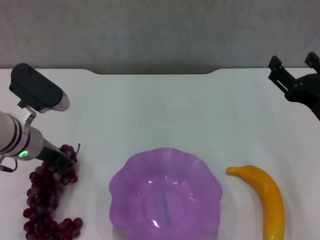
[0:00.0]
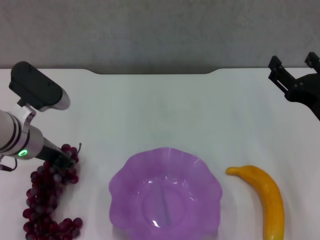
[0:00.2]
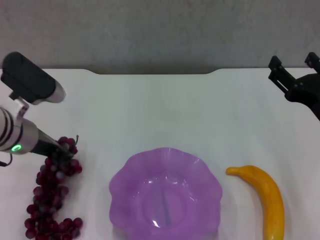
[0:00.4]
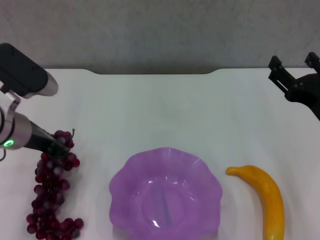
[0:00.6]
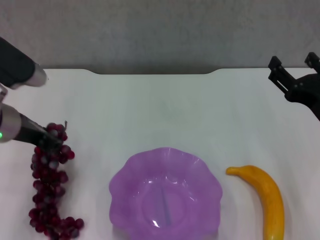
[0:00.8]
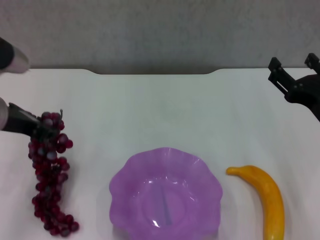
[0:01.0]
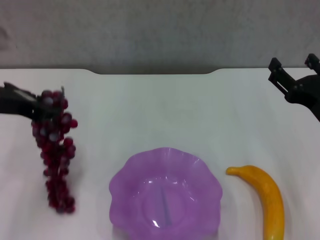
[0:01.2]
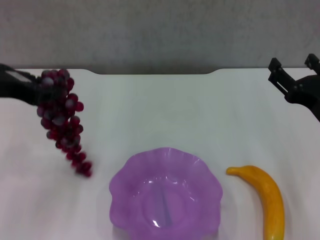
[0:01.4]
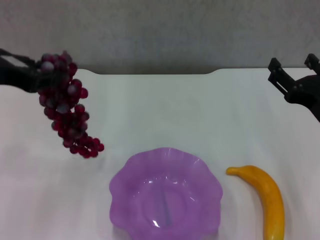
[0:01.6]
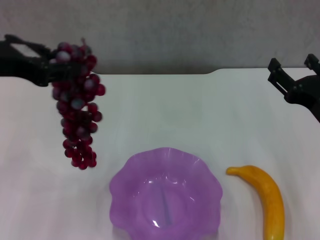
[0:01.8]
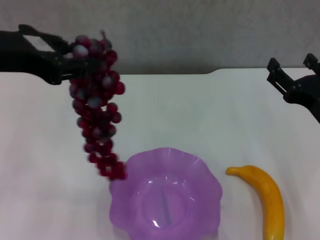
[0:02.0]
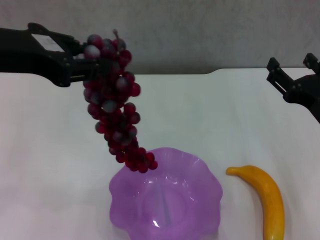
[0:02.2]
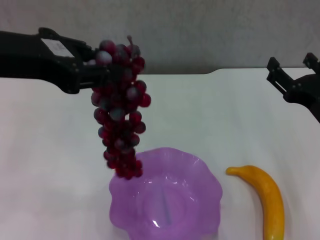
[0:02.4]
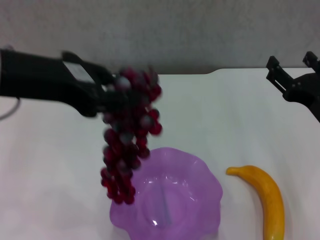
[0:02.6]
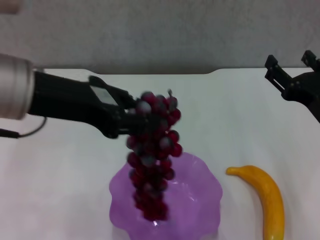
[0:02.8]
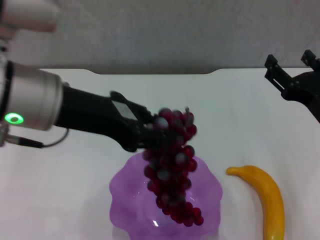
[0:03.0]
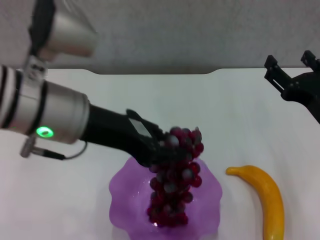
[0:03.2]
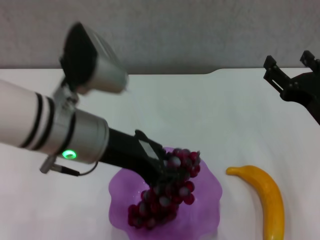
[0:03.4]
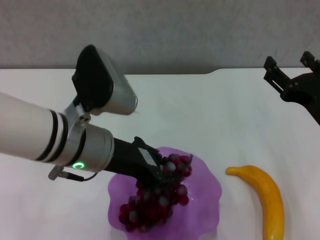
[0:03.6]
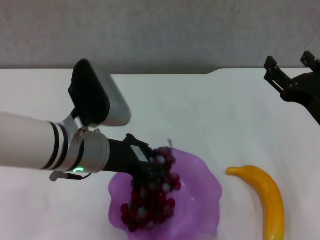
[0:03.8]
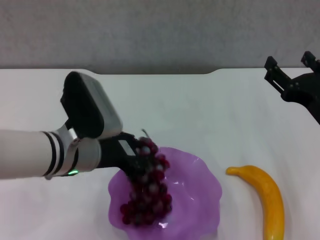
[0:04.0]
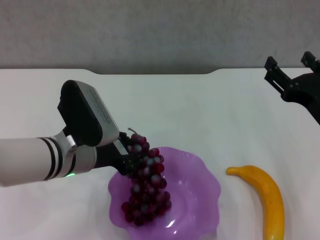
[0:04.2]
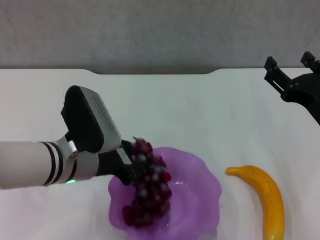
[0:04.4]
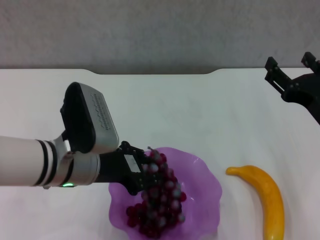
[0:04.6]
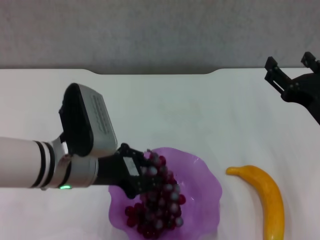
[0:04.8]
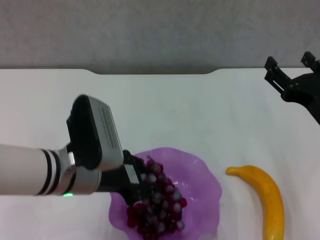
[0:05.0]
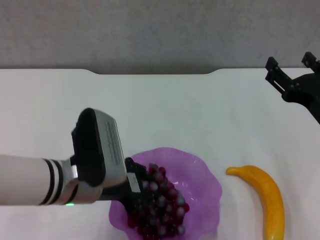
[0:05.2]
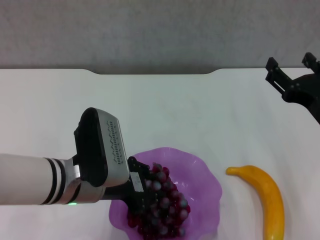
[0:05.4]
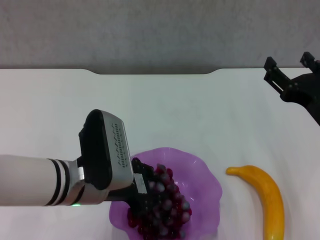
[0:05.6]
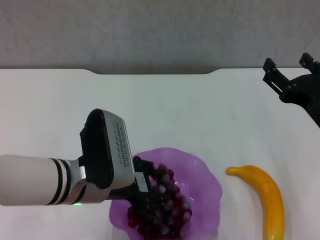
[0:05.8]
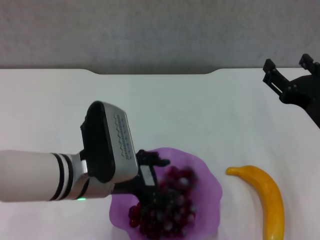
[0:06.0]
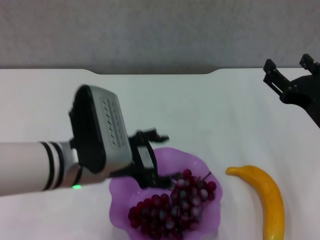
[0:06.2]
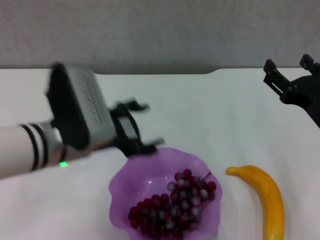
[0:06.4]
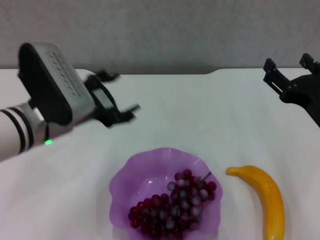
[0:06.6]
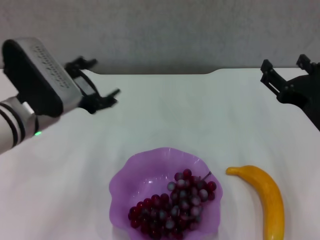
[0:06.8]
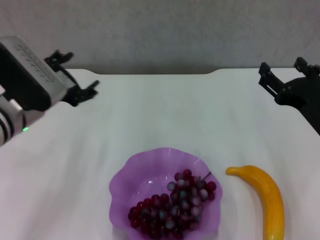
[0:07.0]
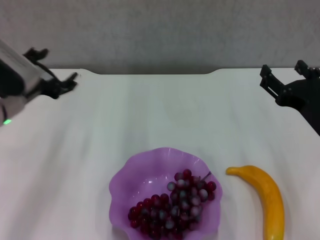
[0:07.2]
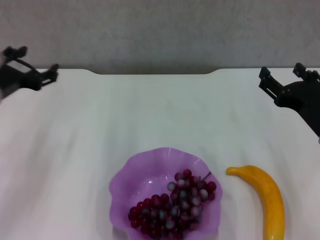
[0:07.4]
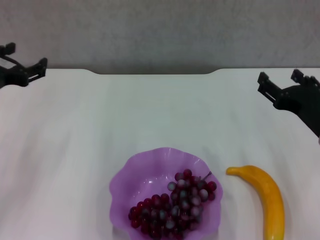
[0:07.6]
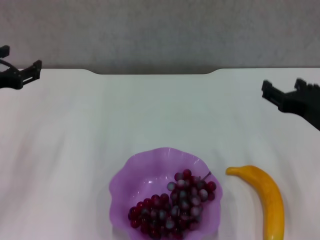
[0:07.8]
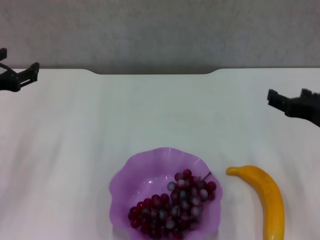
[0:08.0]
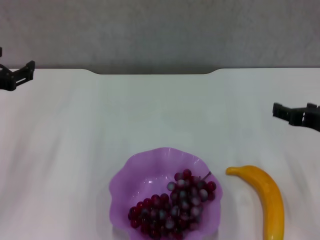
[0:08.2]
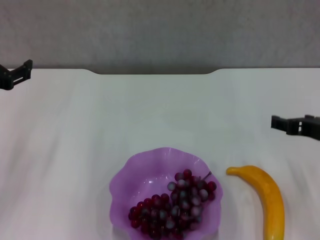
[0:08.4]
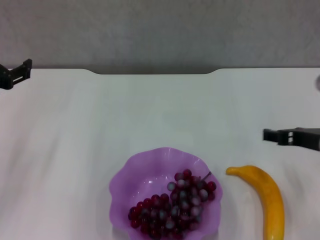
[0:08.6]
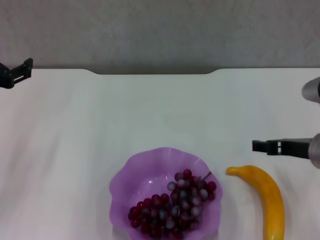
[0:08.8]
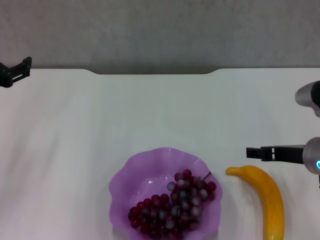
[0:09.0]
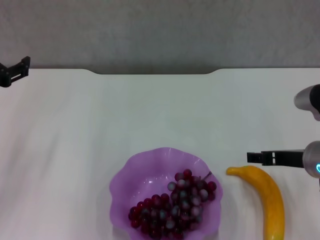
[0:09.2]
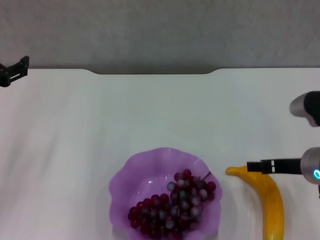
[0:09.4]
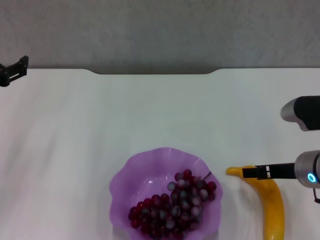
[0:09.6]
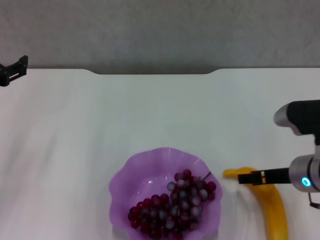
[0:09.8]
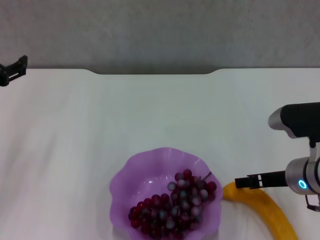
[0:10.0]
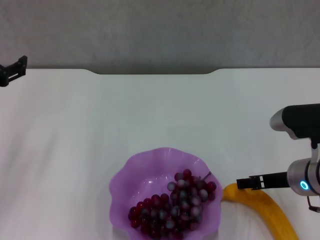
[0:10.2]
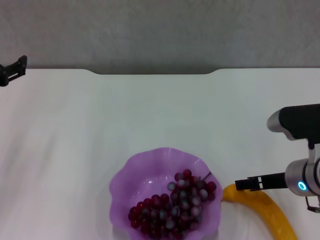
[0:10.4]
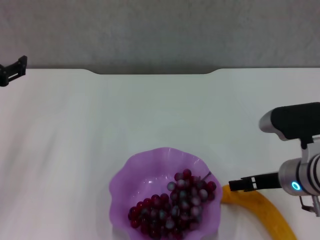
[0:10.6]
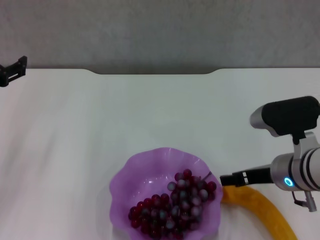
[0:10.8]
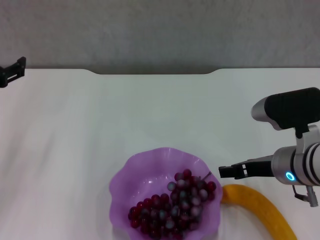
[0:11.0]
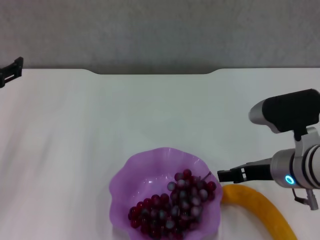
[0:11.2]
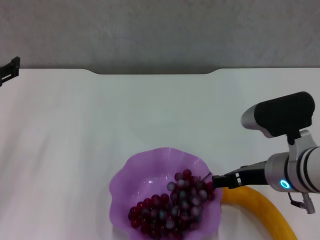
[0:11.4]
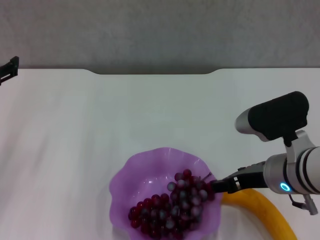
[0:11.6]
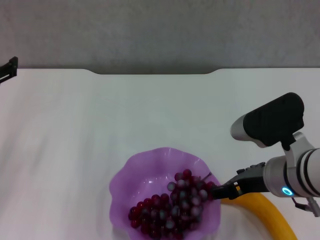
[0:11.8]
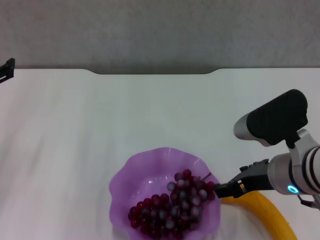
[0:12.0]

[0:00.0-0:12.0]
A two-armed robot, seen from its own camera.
Step, 0:00.0 to 0:06.2: Place the grape in the purple plate with left gripper.
0:00.0 to 0:01.6: The left gripper goes about 15 cm upward.
0:01.6 to 0:03.0: The left gripper goes about 10 cm to the right.
0:03.0 to 0:04.4: The left gripper shifts approximately 15 cm downward.
0:04.4 to 0:06.0: The grippers stay close to where they were, moving slightly.
0:06.0 to 0:07.6: The left gripper is displaced to the left by some 15 cm, and opens its fingers.
0:09.0 to 0:10.4: There are only small adjustments of the grippers.
0:10.4 to 0:12.0: The right gripper ends up approximately 5 cm from where it was.

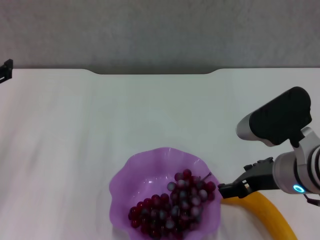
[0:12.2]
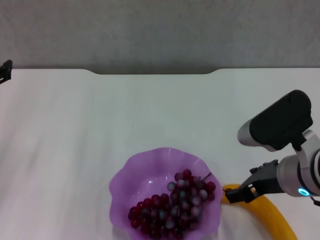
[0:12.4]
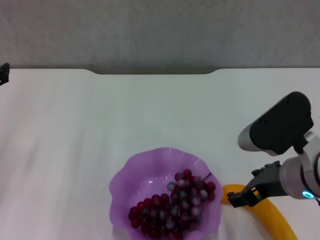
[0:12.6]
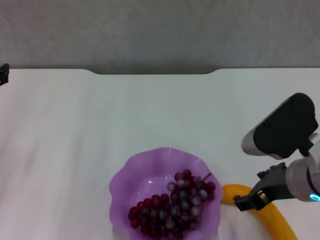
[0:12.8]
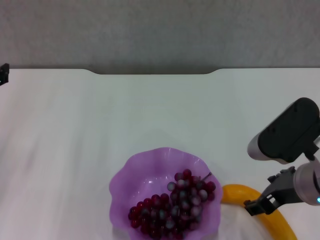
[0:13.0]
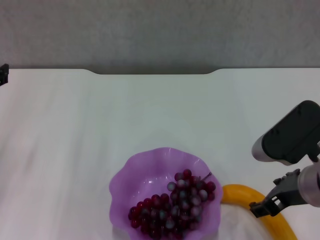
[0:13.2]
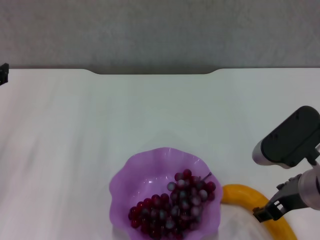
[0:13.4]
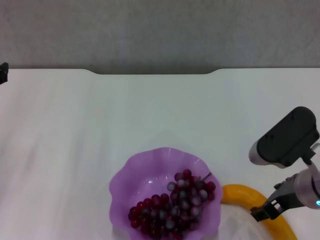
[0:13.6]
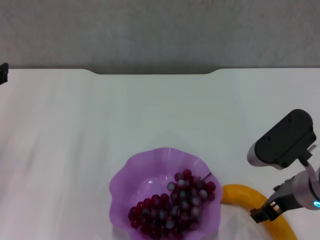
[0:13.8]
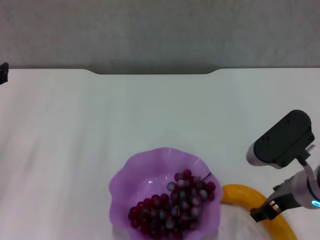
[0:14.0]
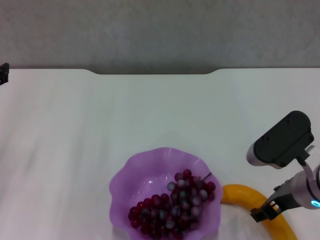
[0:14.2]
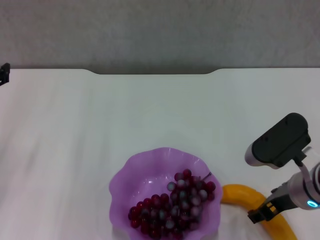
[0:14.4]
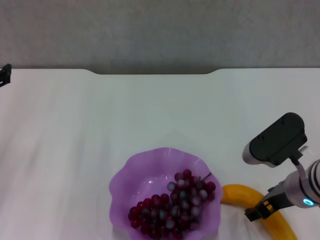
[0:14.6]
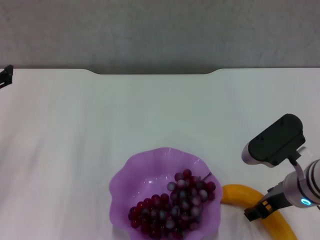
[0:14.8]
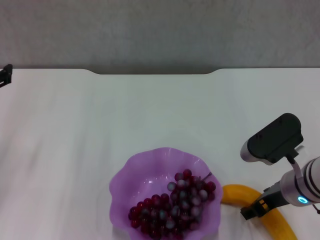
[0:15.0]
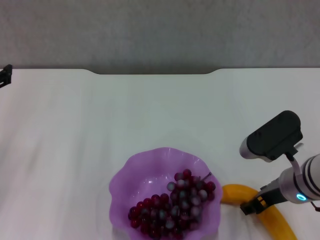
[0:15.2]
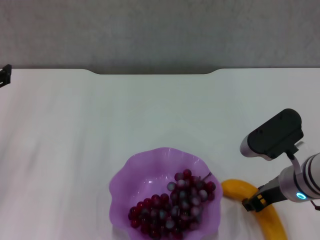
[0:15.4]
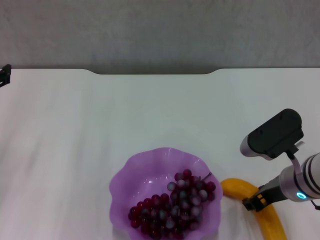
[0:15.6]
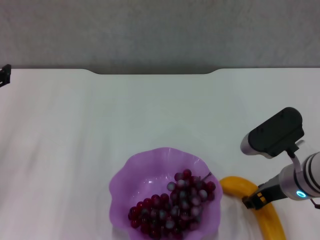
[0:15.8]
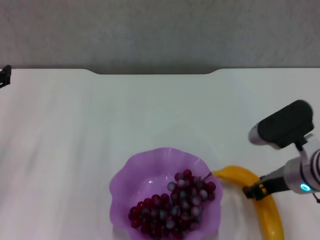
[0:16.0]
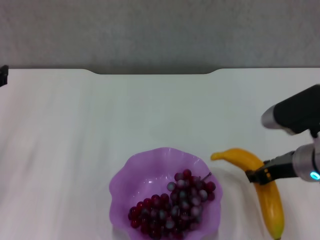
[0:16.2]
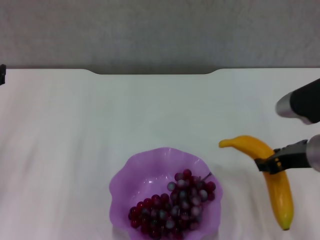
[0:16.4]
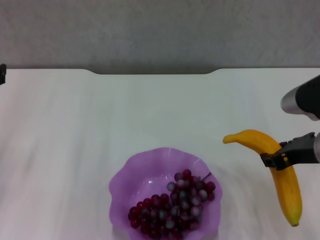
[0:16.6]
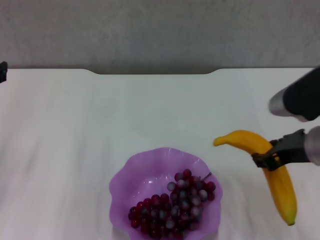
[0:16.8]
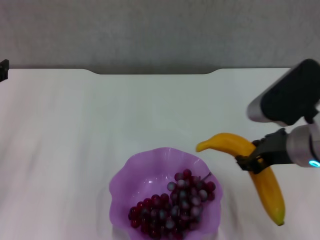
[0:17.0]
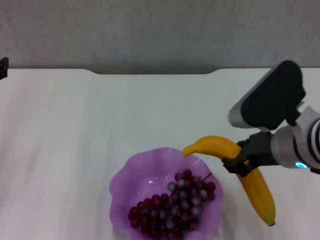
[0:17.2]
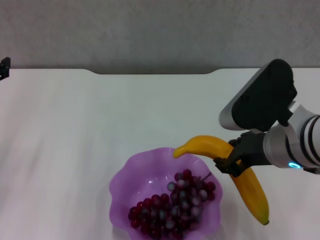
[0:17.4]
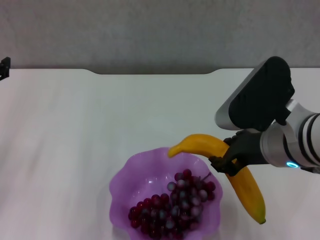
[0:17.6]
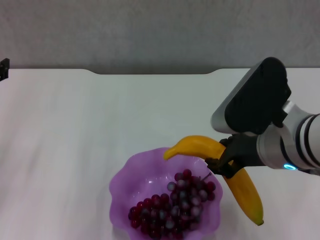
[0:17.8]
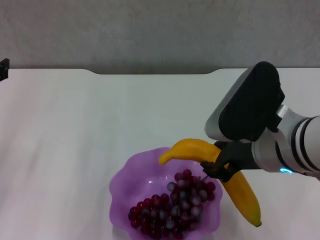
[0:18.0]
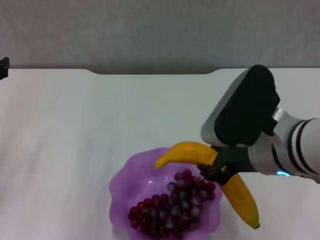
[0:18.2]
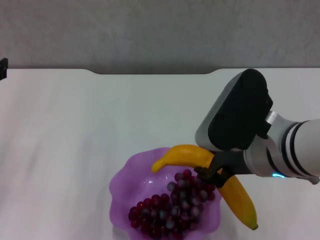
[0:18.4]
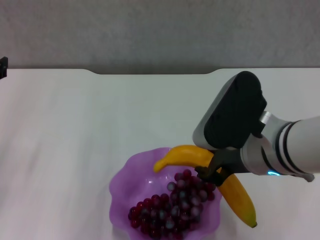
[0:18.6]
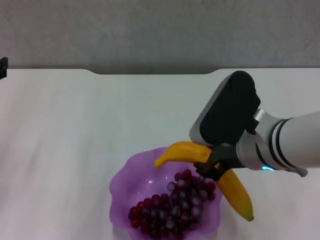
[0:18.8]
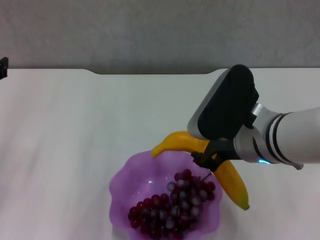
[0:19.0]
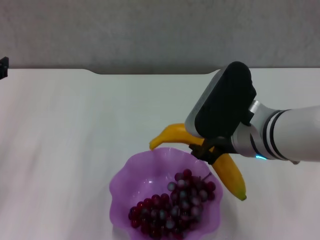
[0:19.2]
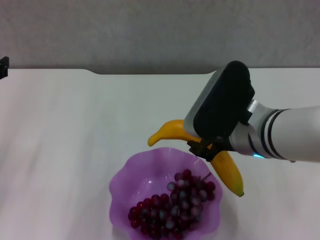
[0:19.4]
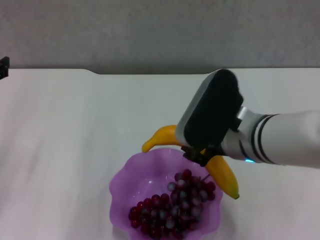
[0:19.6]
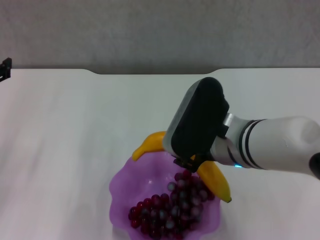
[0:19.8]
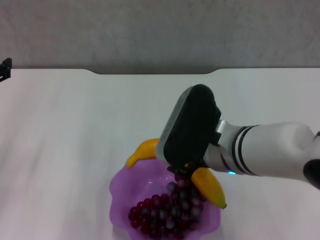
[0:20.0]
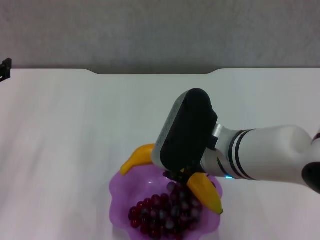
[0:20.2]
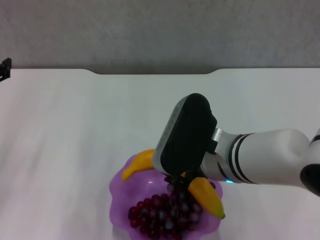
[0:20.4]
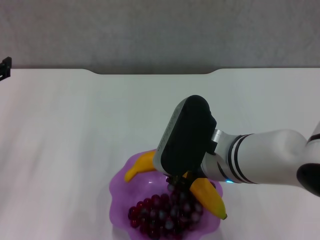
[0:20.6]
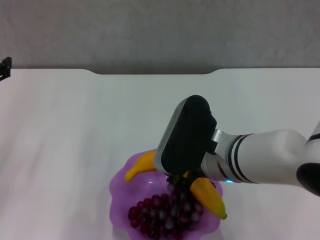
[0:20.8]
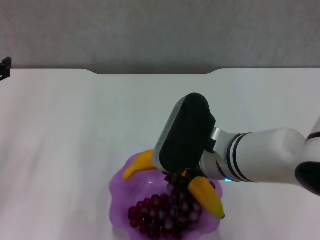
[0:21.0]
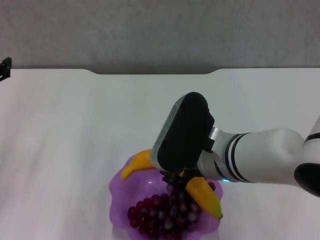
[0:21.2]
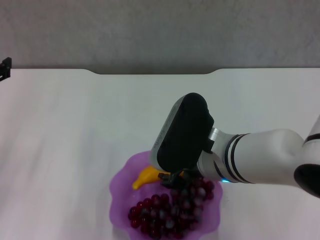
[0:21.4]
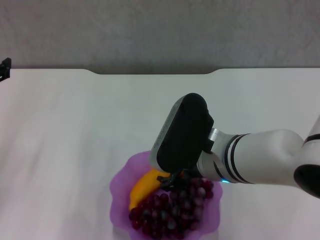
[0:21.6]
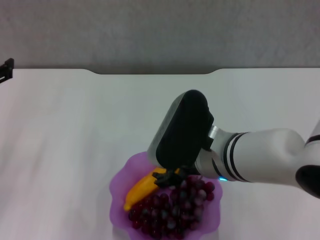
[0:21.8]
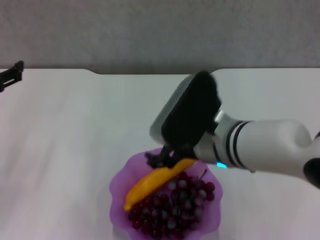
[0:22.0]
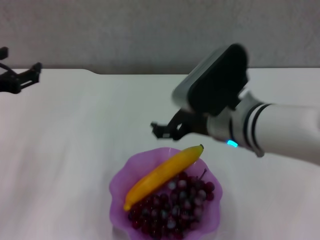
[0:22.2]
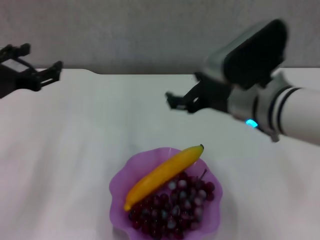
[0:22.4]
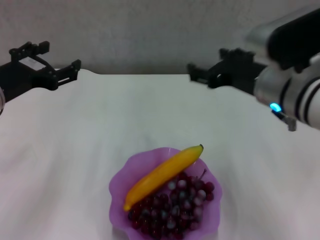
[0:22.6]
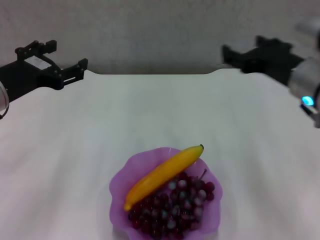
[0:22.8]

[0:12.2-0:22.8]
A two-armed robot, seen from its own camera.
Step, 0:12.2 to 0:15.6: Grasp the banana with right gripper.
Step, 0:15.8 to 0:21.8: Place the banana in the purple plate with right gripper.
0:12.2 to 0:13.8: The grippers make only small movements.
0:13.8 to 0:15.2: There are only small adjustments of the grippers.
0:15.2 to 0:16.8: The right gripper heads upward, covering some 10 cm, and closes its fingers.
0:16.8 to 0:18.2: The right gripper shifts roughly 10 cm to the left.
0:18.2 to 0:19.8: The right gripper changes place by approximately 5 cm.
0:19.8 to 0:21.2: The grippers make only small movements.
0:21.2 to 0:22.8: The left gripper moves to the right, some 10 cm; the right gripper travels to the right by some 10 cm, and opens its fingers.
